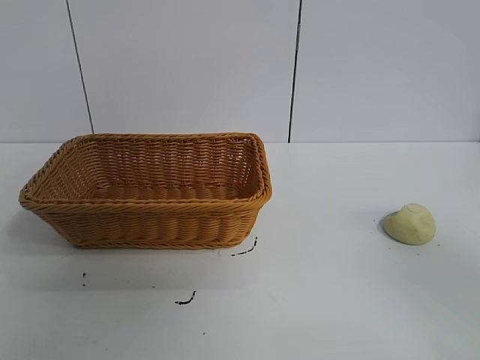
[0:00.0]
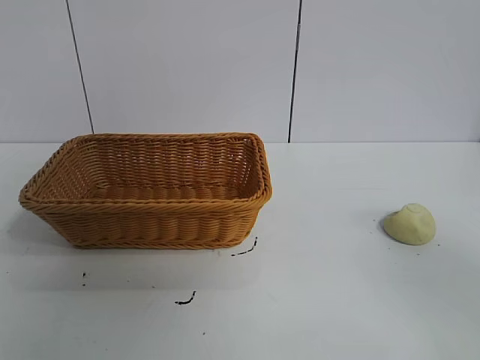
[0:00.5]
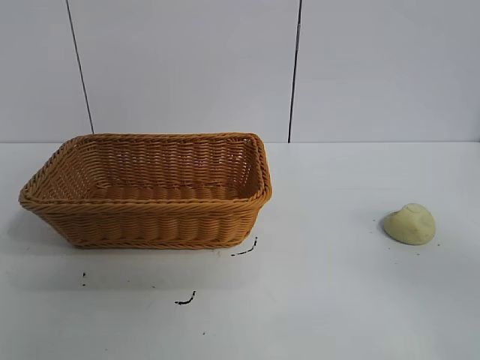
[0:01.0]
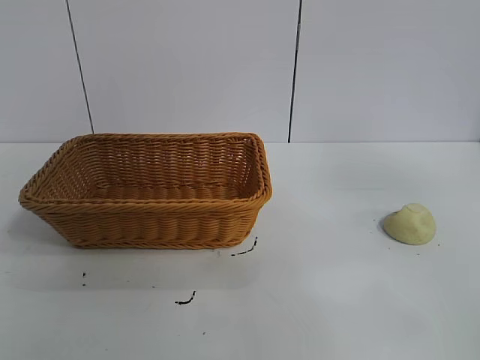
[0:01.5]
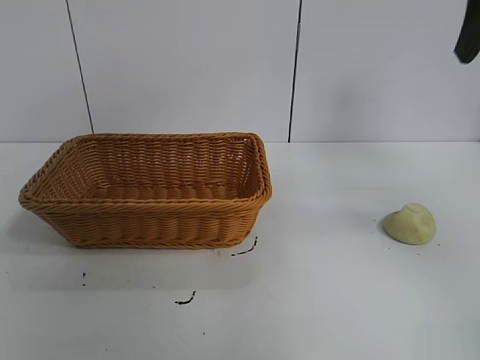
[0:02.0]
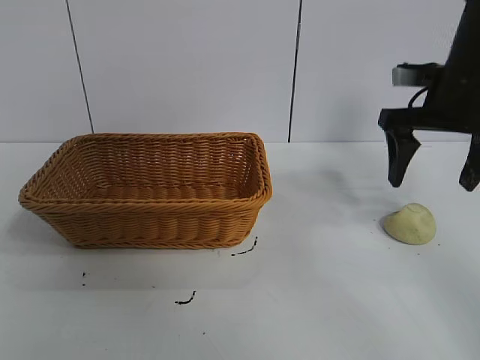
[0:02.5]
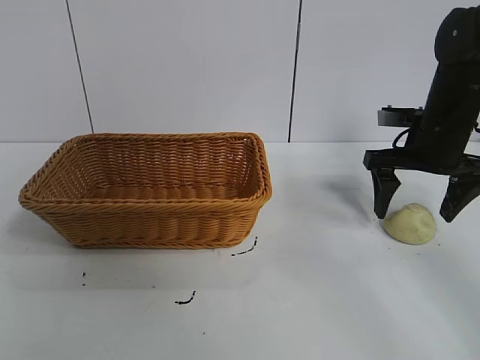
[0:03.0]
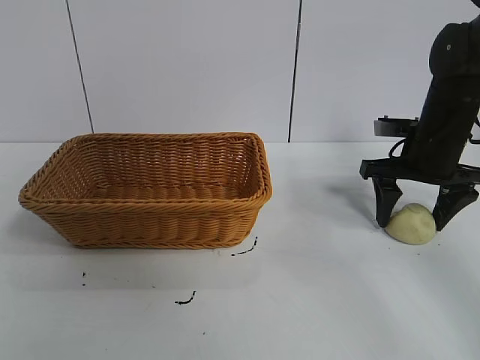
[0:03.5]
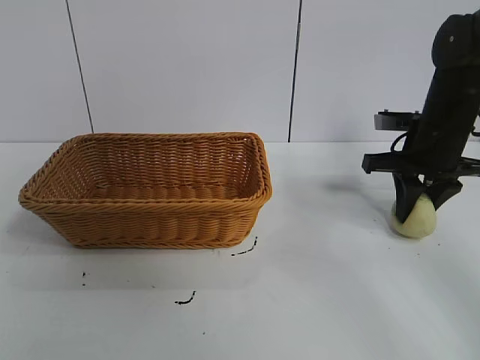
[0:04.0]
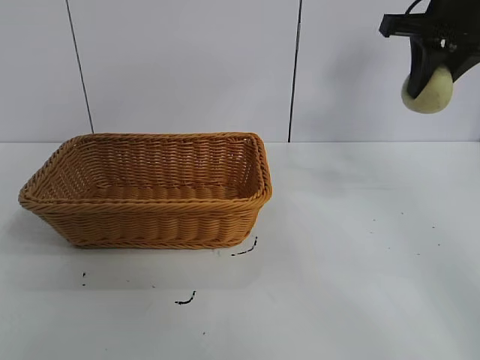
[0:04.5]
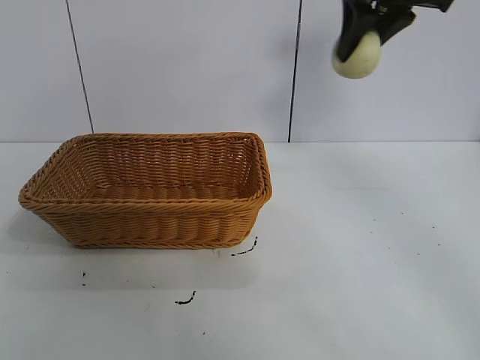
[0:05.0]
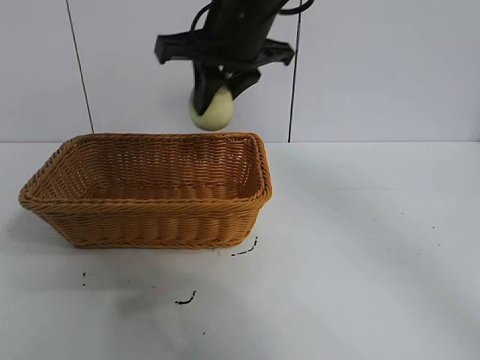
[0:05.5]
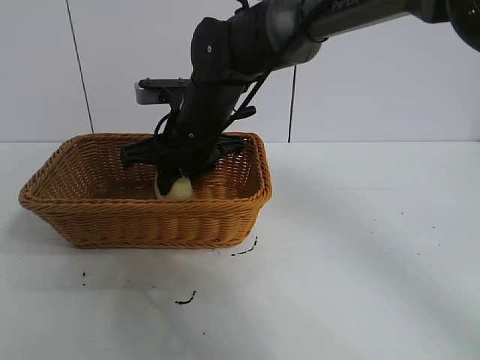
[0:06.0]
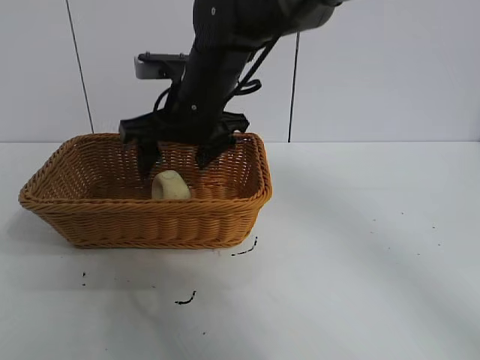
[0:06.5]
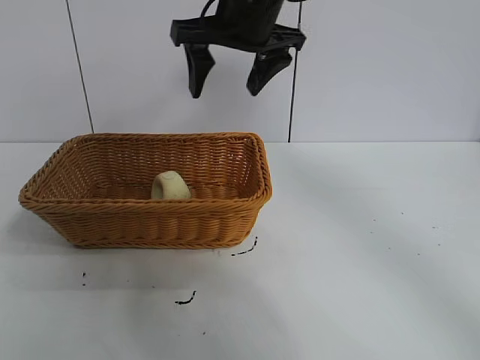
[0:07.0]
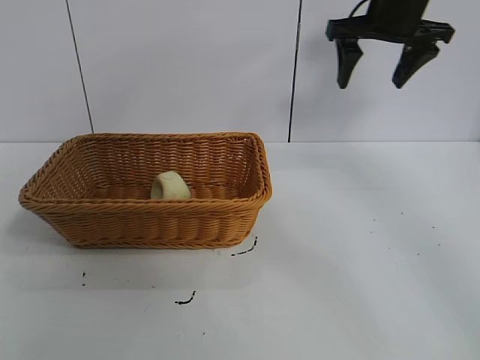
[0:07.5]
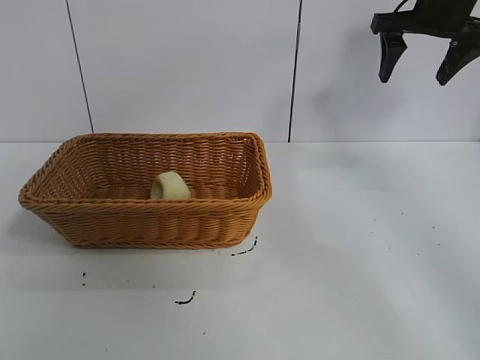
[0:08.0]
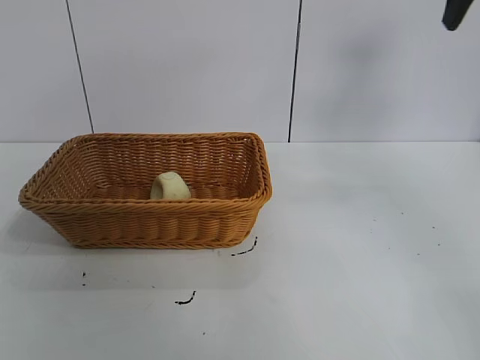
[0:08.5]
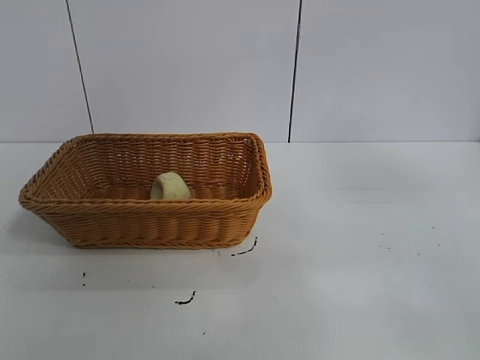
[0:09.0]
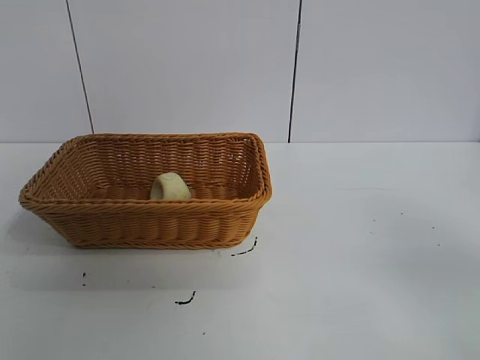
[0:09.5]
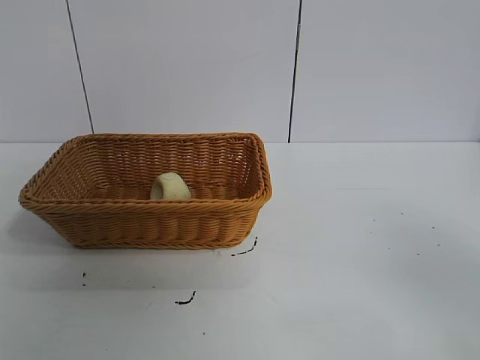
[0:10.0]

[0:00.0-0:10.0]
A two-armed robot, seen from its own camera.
Task of the whole recording: pick up the egg yolk pastry and put it into the basket.
Step, 0:01.0 to 0:03.5: Grasp egg yolk pastry with right gripper.
Step, 0:04.0 to 0:06.0: Place the egg yolk pastry in the basket with right gripper.

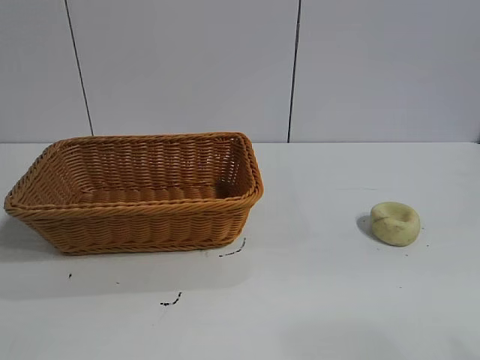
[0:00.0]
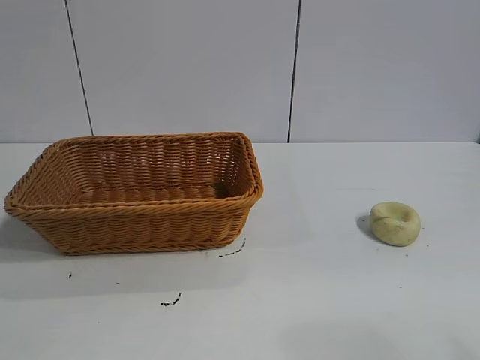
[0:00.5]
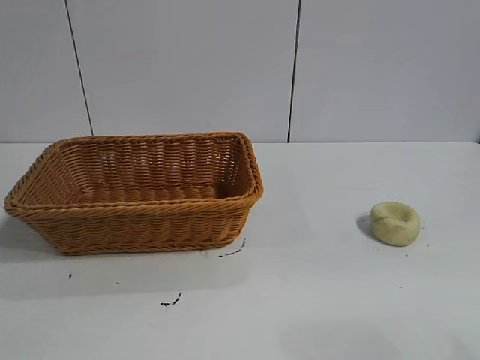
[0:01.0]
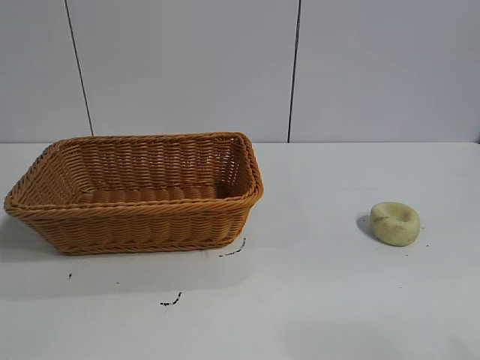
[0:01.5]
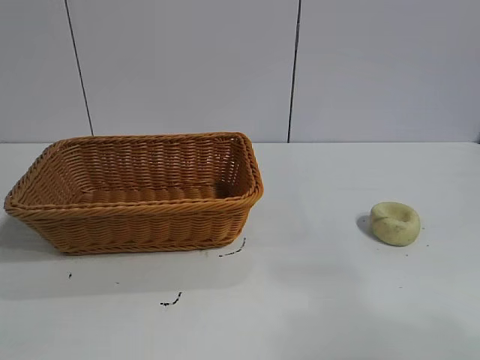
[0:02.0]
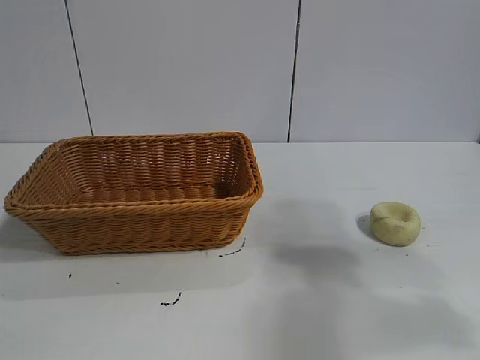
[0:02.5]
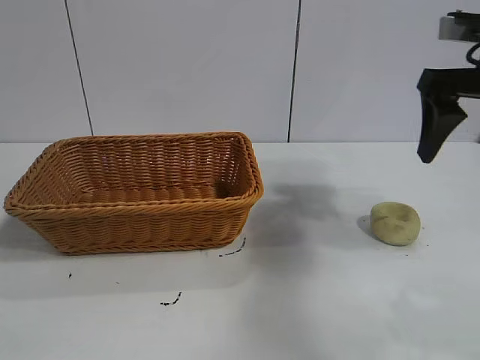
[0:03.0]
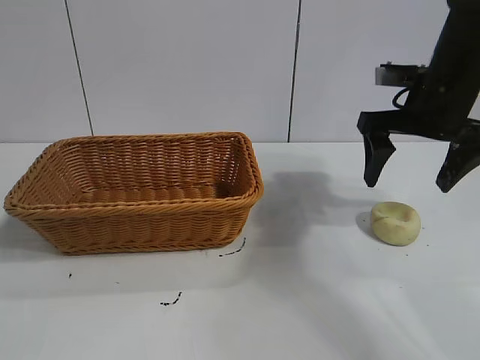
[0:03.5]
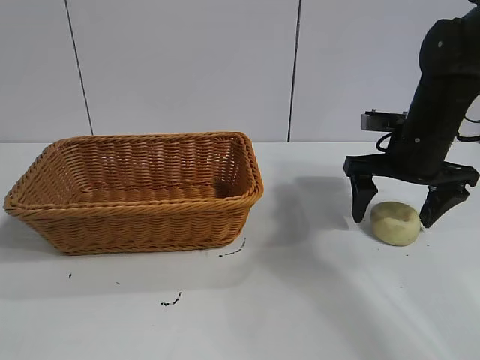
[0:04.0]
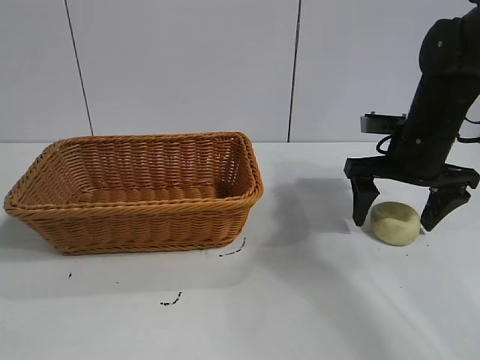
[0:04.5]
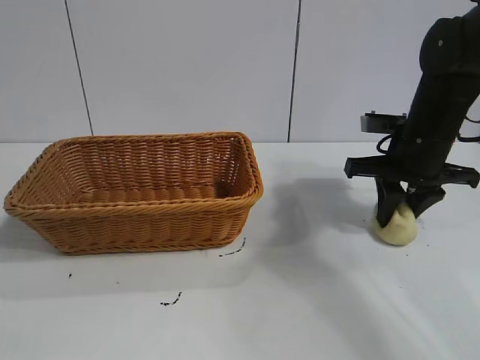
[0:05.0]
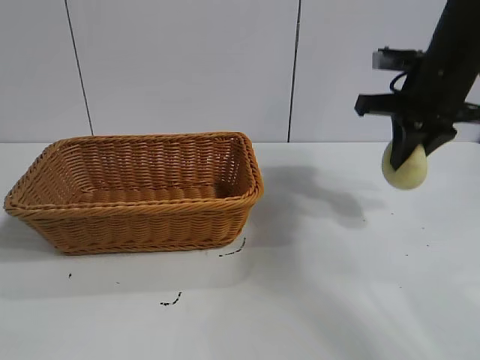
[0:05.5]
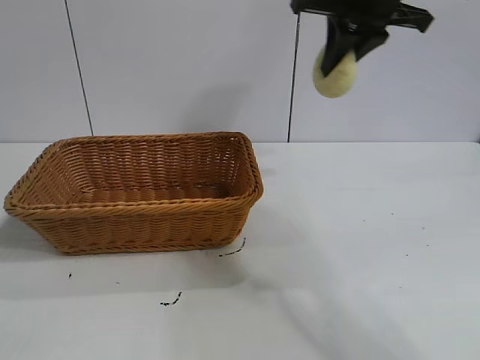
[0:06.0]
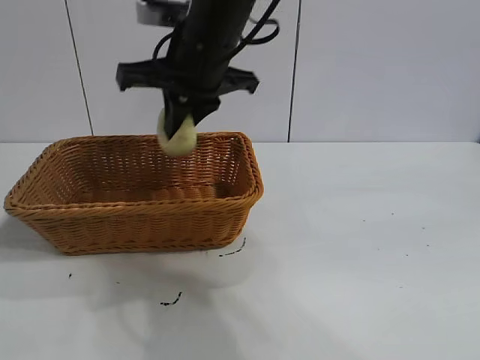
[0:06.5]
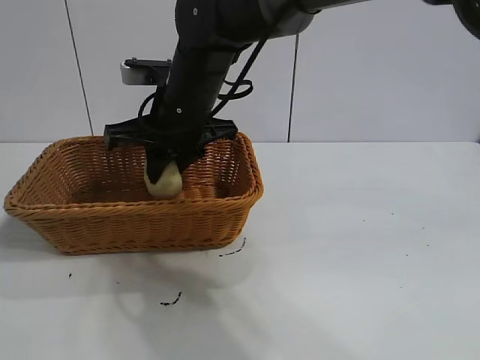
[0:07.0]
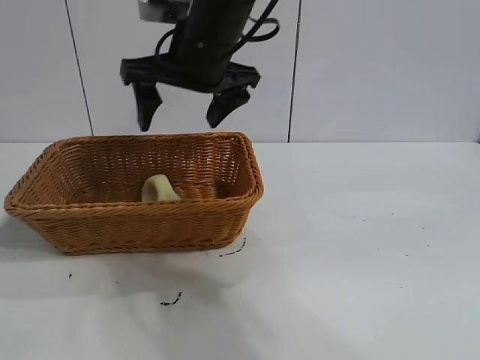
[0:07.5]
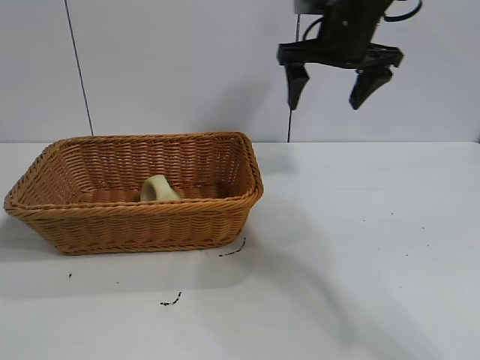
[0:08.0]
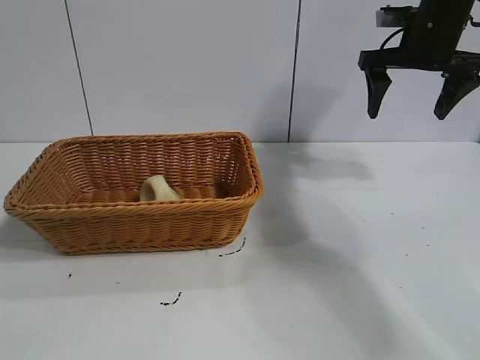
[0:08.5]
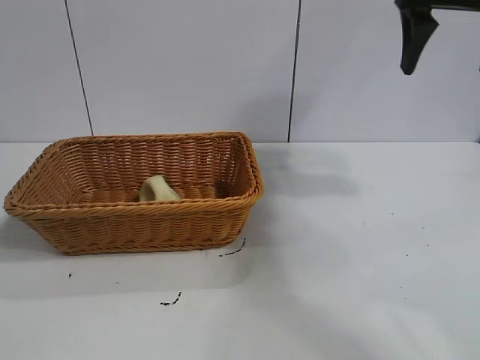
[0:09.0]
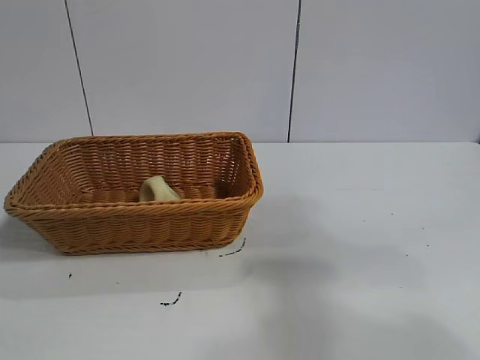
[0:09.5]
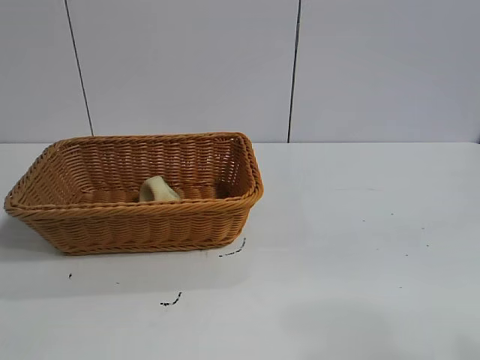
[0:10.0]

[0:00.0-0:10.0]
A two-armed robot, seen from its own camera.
Task of the whole recording: pick up the egg yolk pastry and put it into the basket.
Step, 0:02.0 to 0:05.0: Grasp egg yolk pastry with right gripper.
Step, 0:05.5 to 0:07.0: Place the egg yolk pastry in the basket with right gripper.
